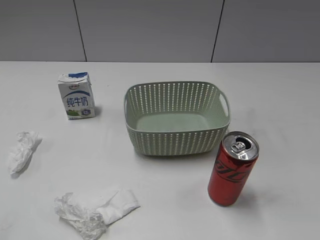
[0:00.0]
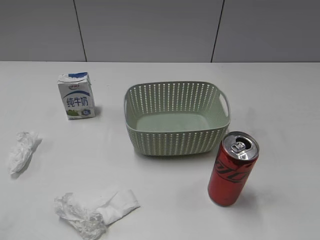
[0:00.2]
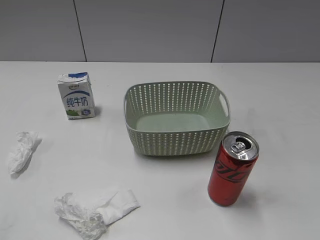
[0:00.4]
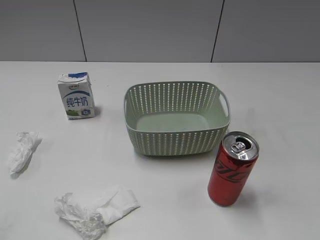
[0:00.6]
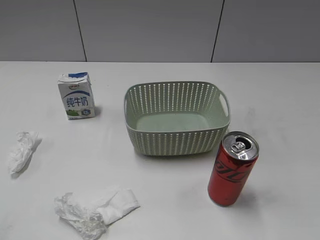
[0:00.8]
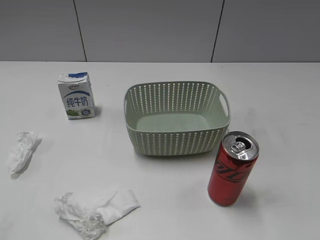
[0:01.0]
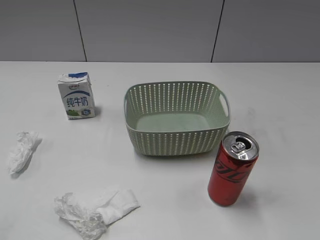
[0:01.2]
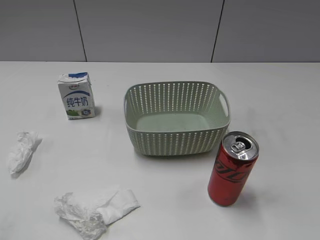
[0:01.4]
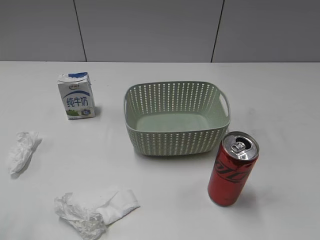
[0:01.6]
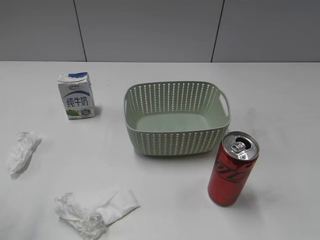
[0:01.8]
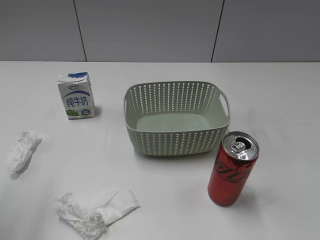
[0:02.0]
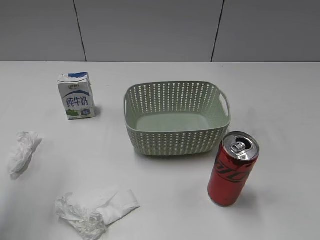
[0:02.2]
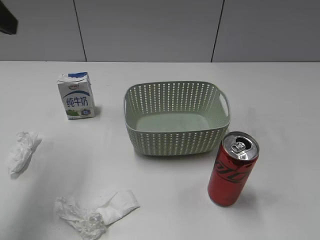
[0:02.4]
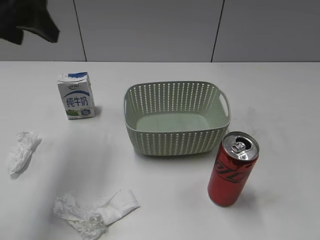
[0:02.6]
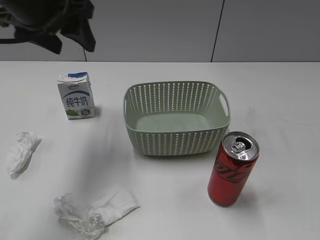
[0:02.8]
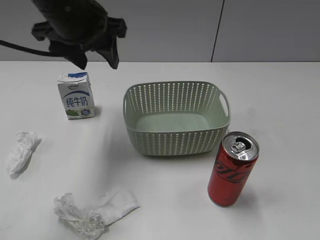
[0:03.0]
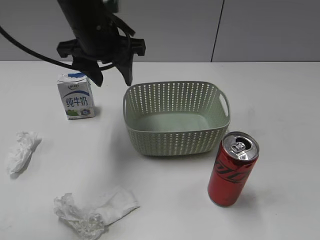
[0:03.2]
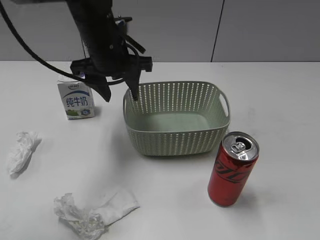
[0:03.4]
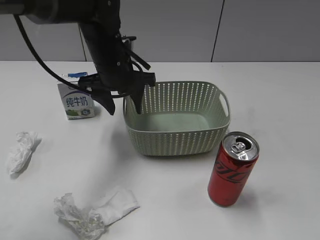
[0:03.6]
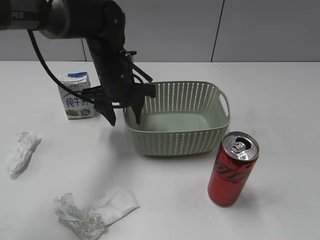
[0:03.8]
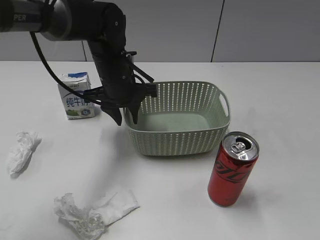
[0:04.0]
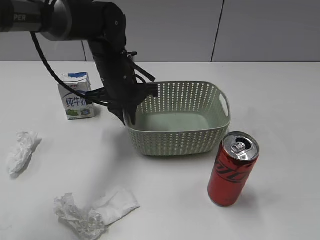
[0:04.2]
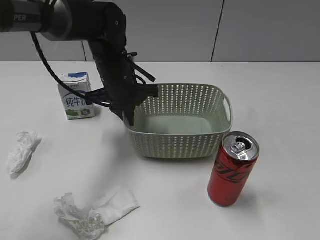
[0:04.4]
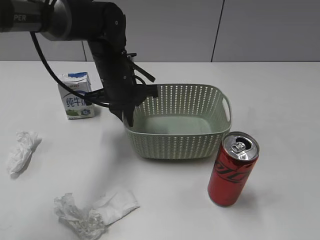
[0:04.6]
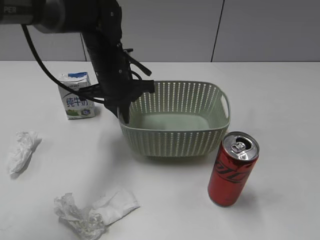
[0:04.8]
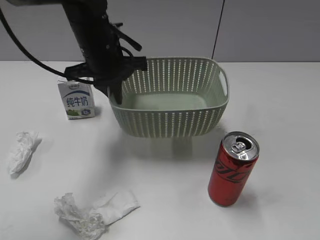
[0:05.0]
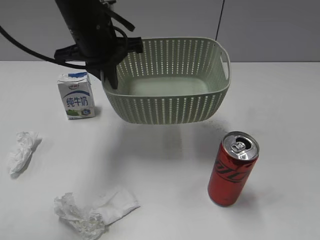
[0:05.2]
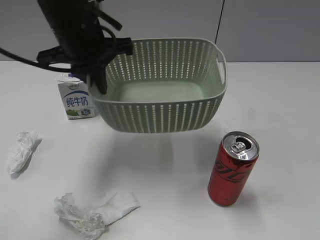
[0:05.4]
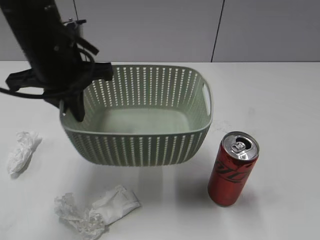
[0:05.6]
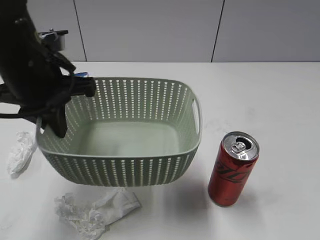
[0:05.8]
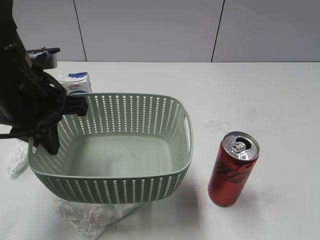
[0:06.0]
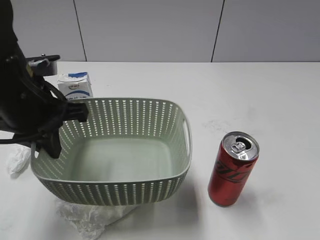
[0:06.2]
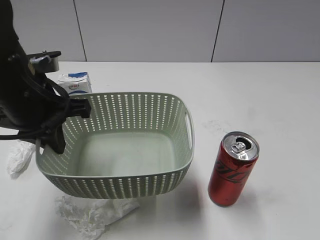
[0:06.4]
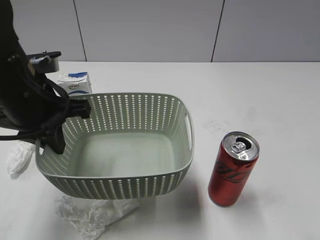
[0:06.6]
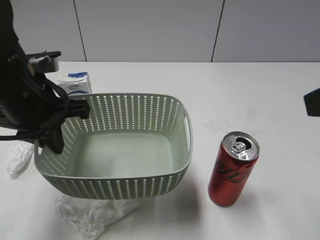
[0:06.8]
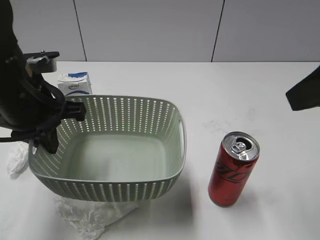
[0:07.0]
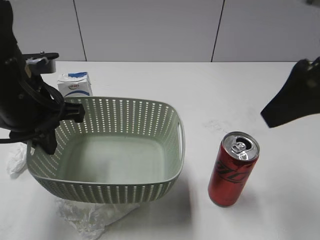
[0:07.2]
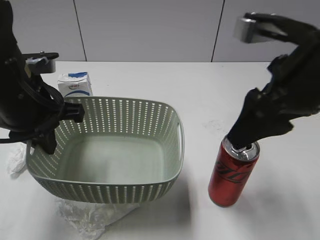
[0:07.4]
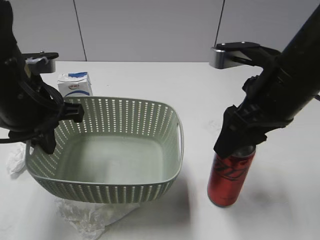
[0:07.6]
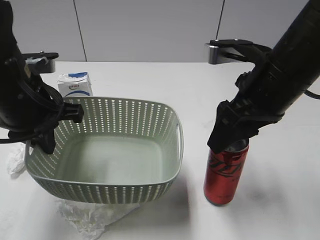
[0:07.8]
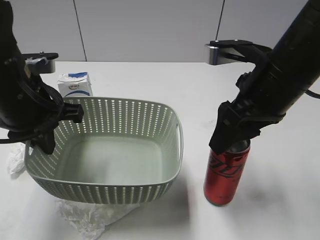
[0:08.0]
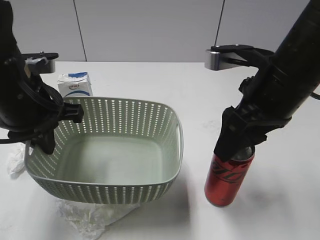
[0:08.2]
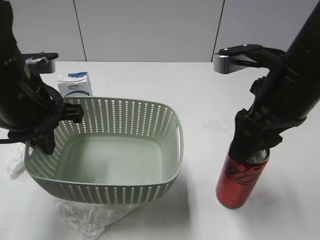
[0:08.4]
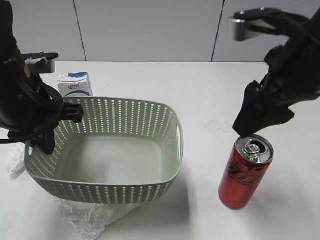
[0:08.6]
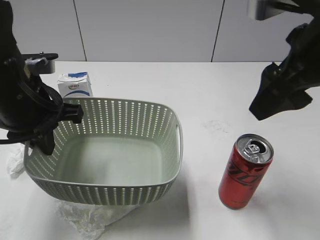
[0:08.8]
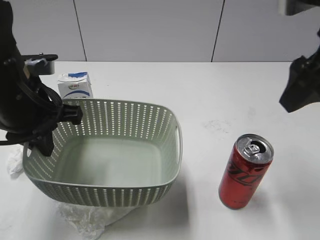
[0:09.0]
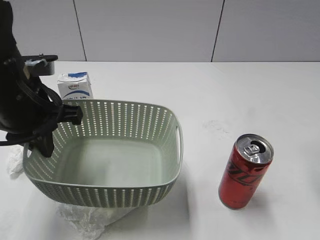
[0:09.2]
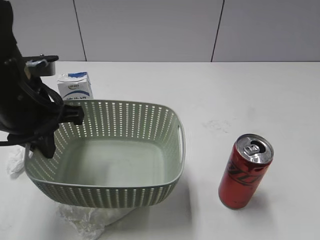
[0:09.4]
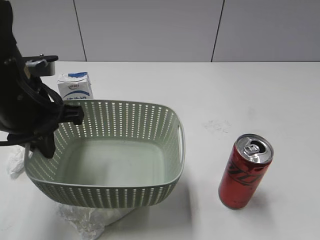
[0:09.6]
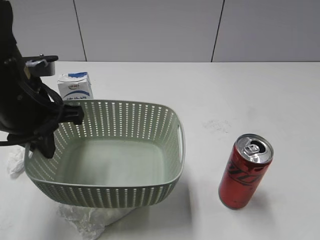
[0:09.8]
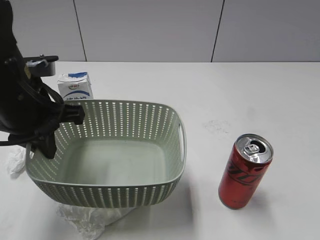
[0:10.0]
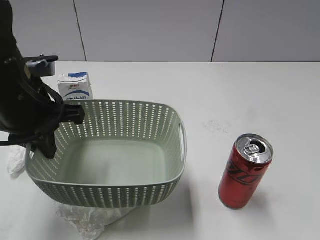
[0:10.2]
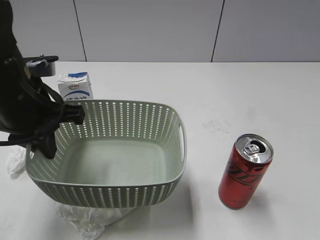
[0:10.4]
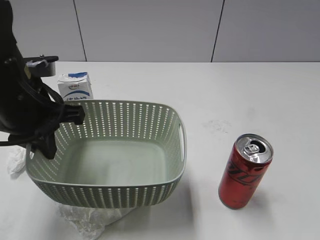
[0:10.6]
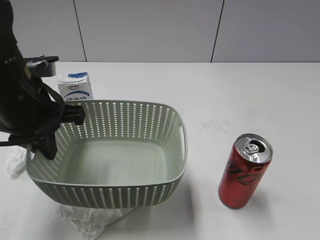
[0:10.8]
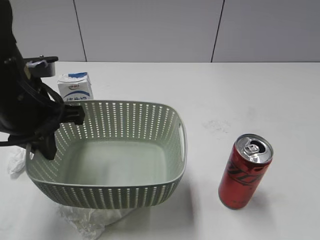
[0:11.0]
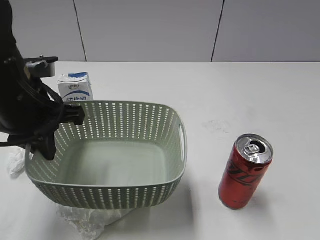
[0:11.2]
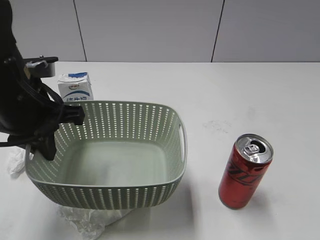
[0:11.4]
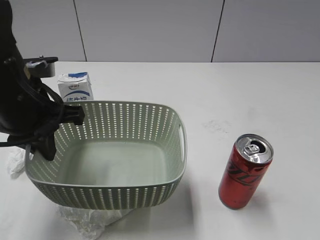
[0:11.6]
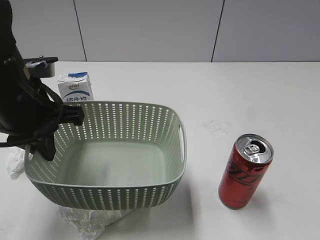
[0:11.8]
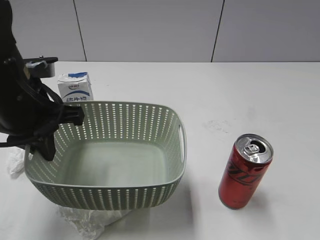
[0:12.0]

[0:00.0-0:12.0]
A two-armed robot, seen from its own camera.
Step, 0:02.4 to 0:04.2: Grasp the basket with left gripper.
Step, 0:04.4 to 0:06.6: Lift the basket with left gripper.
0:01.6 to 0:03.0: The left gripper heads forward and to the right, covering some 30 cm.
0:03.0 to 0:04.4: The left gripper travels downward by some 15 cm, and closes its fingers.
0:04.4 to 0:06.0: The left gripper travels backward, to the left and upward by roughly 20 cm.
0:06.0 to 0:07.6: The right gripper goes about 30 cm forward and to the left, and closes.
0:07.6 to 0:09.0: The right gripper shifts roughly 10 cm upward and to the right, and opens its fingers.
0:09.0 to 0:10.4: The right gripper moves backward and to the right, approximately 25 cm.
0:10.4 to 0:12.0: The right gripper opens.

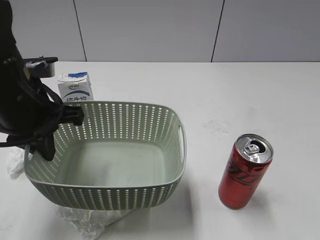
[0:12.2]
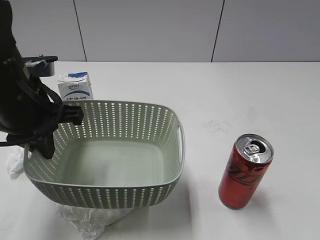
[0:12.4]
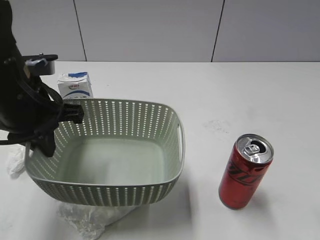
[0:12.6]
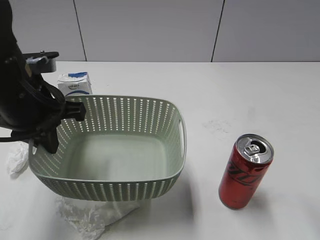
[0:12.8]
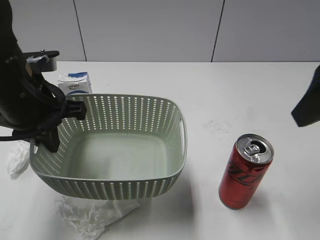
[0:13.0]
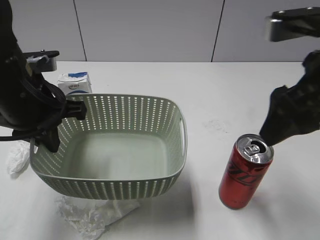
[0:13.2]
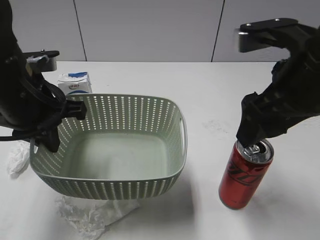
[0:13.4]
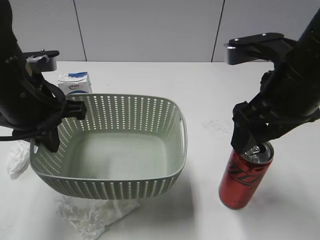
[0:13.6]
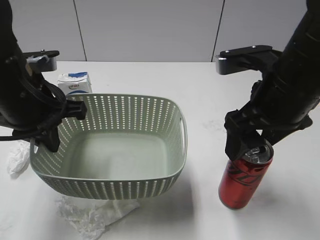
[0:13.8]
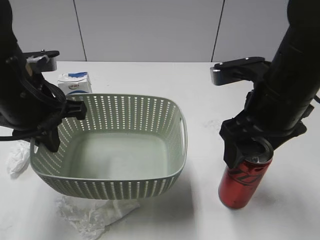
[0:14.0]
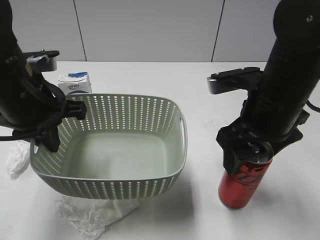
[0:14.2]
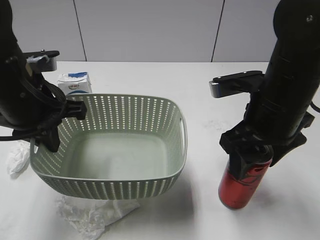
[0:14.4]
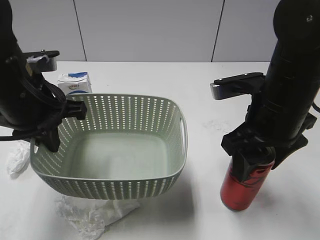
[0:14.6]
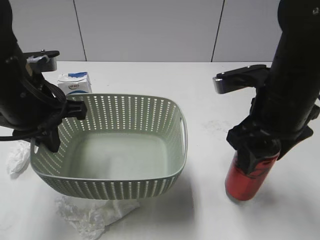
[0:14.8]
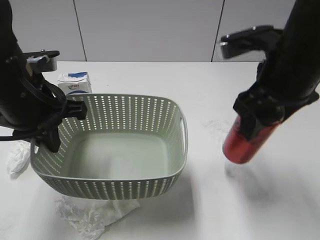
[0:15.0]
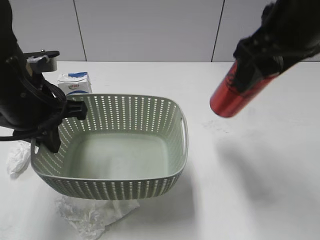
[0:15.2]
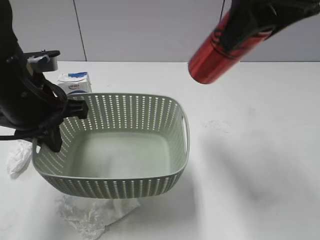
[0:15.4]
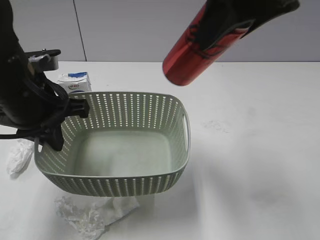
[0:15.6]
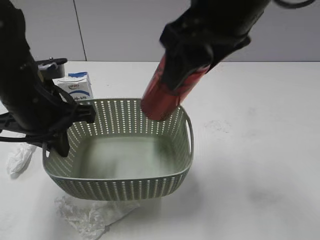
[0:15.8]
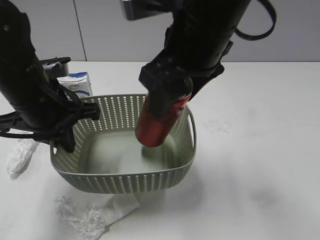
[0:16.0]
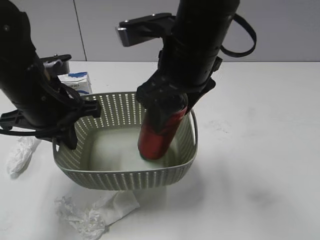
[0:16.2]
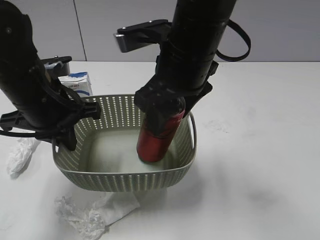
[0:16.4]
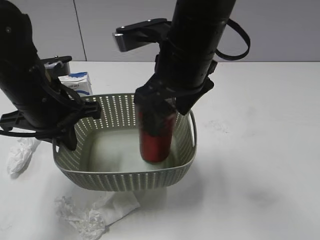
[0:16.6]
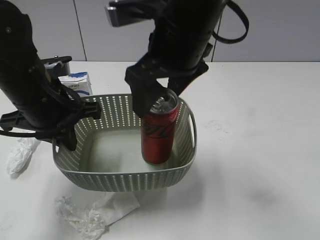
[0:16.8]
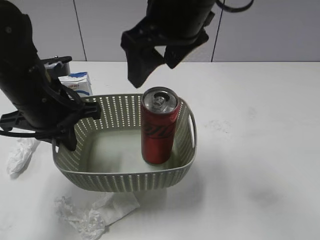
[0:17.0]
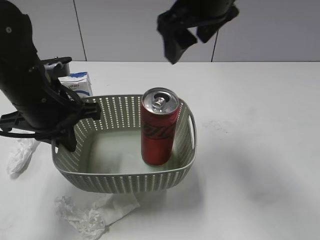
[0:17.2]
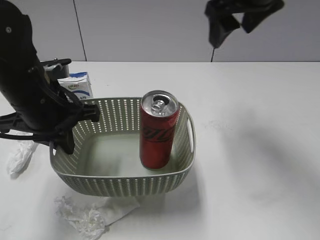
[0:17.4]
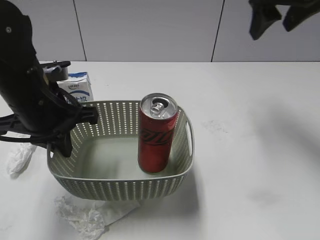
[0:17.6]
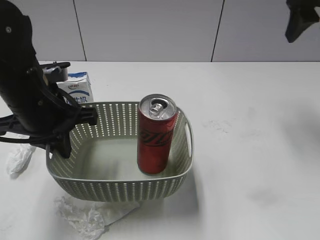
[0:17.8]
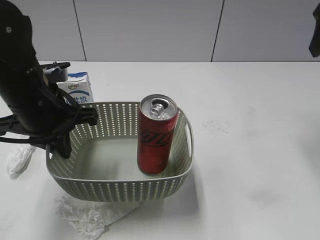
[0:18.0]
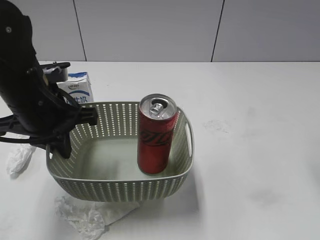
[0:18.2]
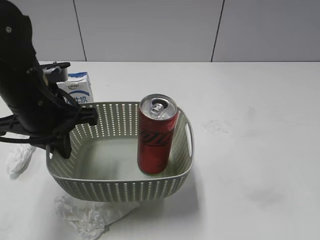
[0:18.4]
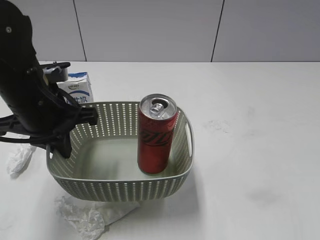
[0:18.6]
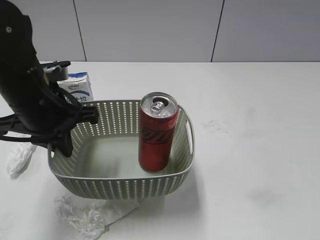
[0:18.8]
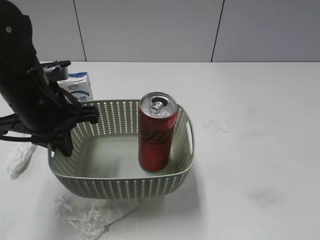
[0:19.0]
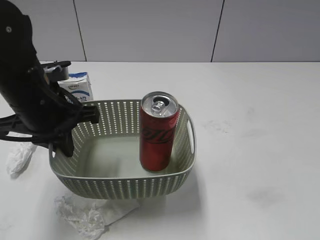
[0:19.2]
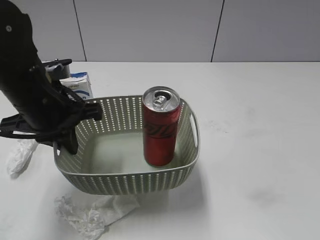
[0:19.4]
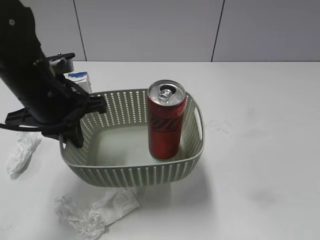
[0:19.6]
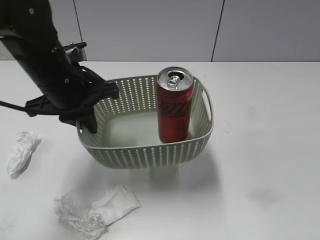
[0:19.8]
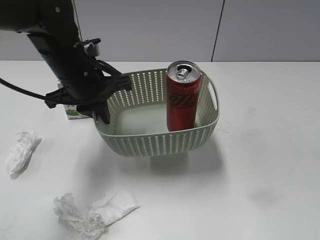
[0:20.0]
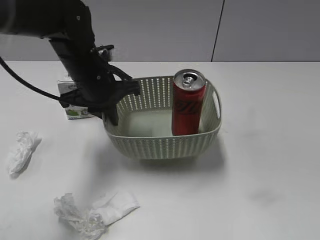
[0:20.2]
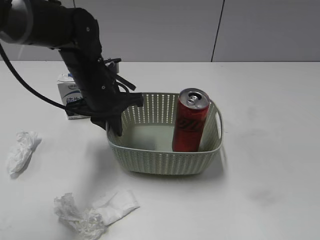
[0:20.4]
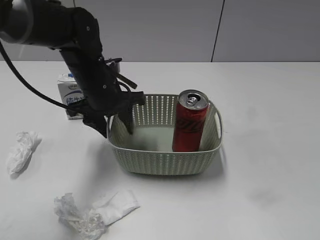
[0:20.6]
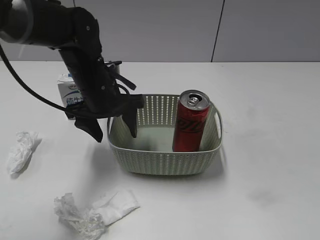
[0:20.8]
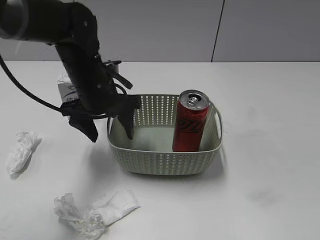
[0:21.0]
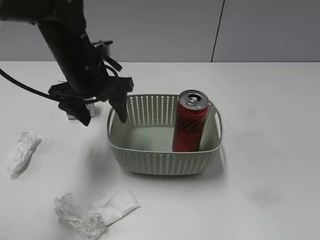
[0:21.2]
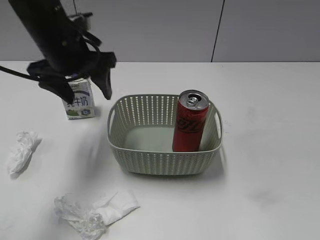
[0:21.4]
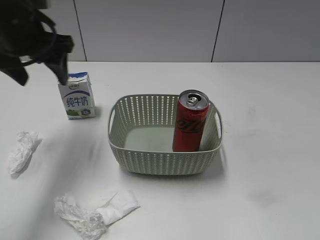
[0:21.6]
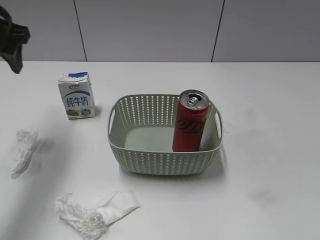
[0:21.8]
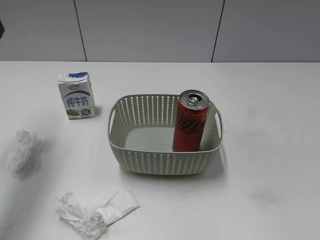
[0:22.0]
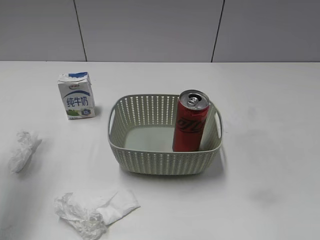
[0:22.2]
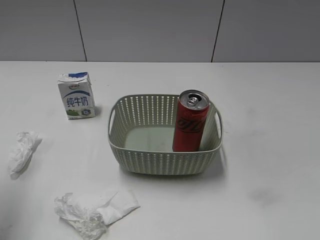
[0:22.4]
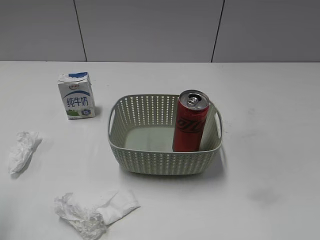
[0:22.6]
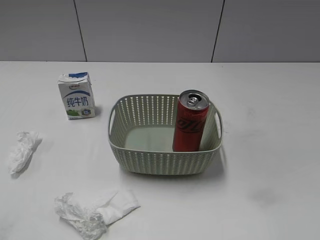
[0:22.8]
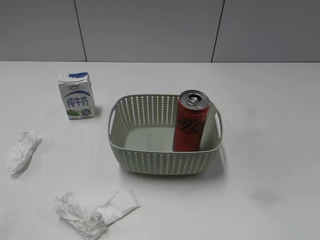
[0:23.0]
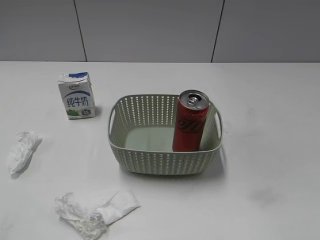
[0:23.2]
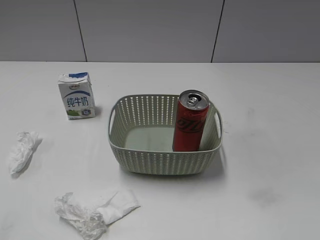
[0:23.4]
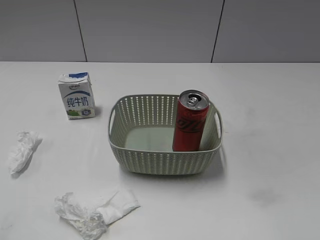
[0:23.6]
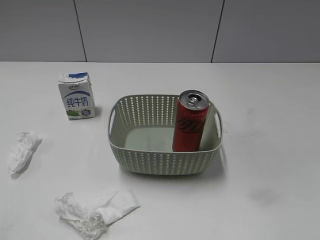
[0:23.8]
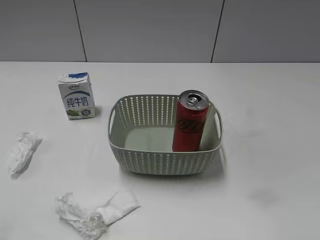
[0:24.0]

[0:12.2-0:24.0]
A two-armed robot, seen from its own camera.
Step, 0:12.2 to 0:14.6: Grasp the cola can with right gripper.
Step, 0:14.8 to 0:16.6: Place the cola can in the basket with right gripper.
Step, 0:16.8 to 0:20.6: Place the basket on the table with left gripper.
0:12.2 to 0:13.6: The right gripper shifts about 25 cm forward and to the left.
0:13.6 to 0:15.2: The right gripper moves upward, some 5 cm, and closes its fingers.
0:15.2 to 0:16.6: The right gripper goes roughly 15 cm to the left and downward, and opens up.
0:16.6 to 0:18.2: The right gripper is displaced to the right by approximately 25 cm.
0:18.2 to 0:19.6: The right gripper is displaced backward by approximately 30 cm.
0:19.6 to 0:21.0: The left gripper shifts some 10 cm forward and to the right, and opens.
0:21.0 to 0:22.6: The left gripper is displaced to the left, backward and upward by some 30 cm.
